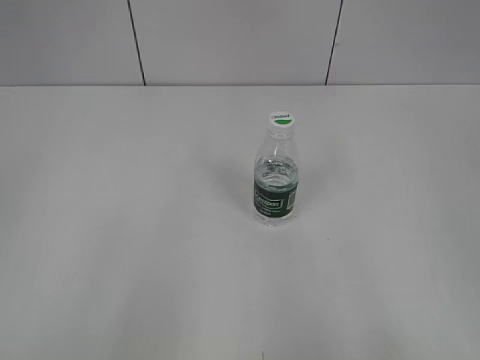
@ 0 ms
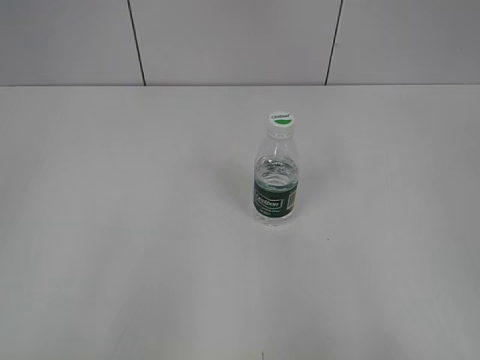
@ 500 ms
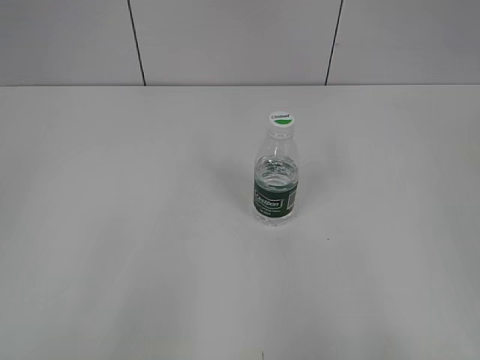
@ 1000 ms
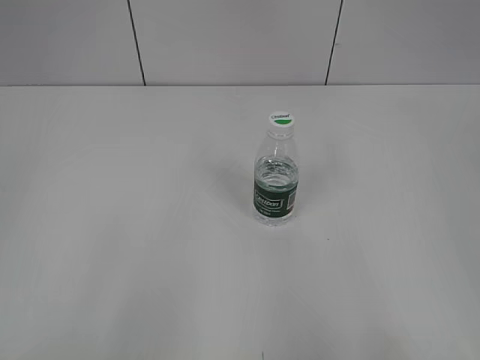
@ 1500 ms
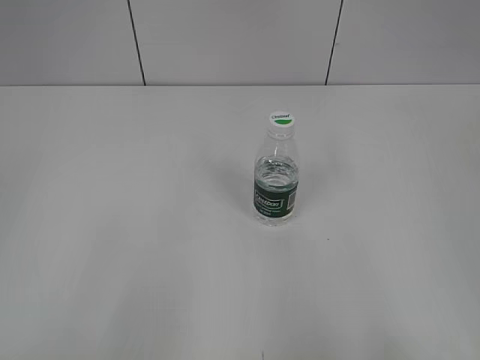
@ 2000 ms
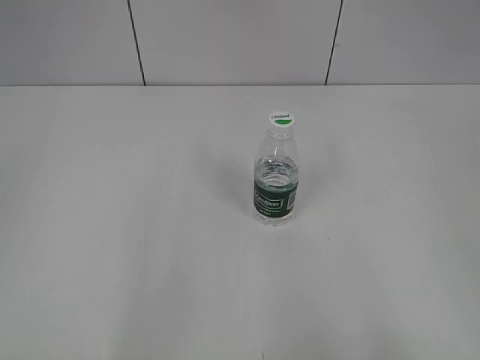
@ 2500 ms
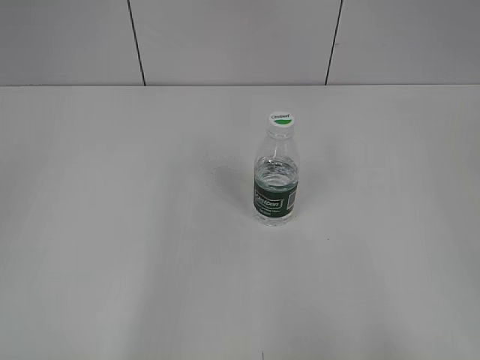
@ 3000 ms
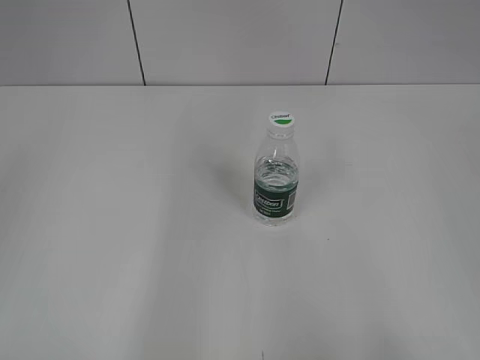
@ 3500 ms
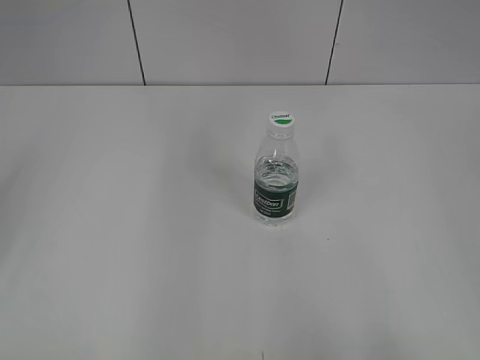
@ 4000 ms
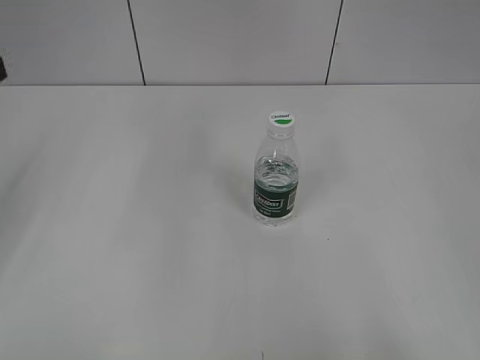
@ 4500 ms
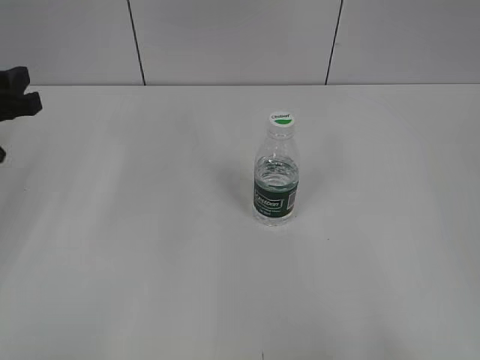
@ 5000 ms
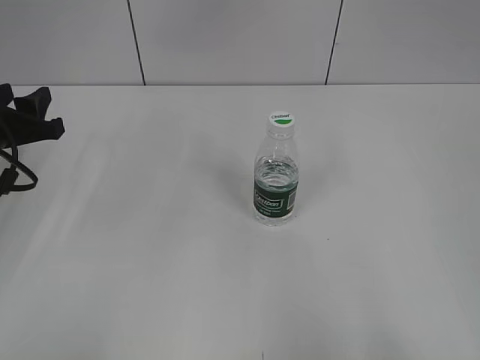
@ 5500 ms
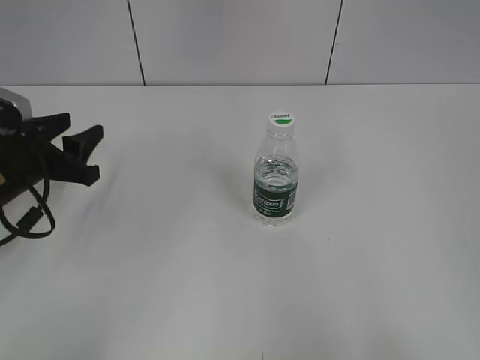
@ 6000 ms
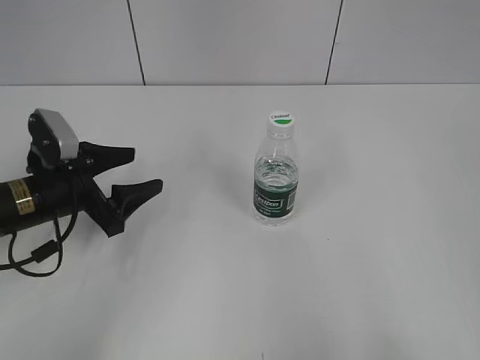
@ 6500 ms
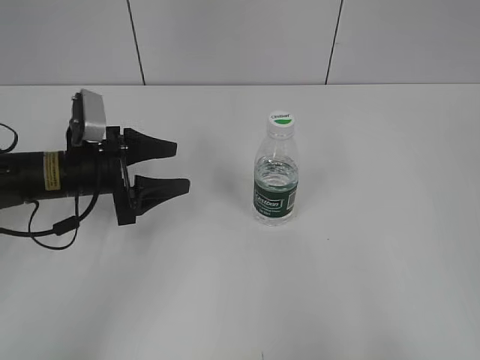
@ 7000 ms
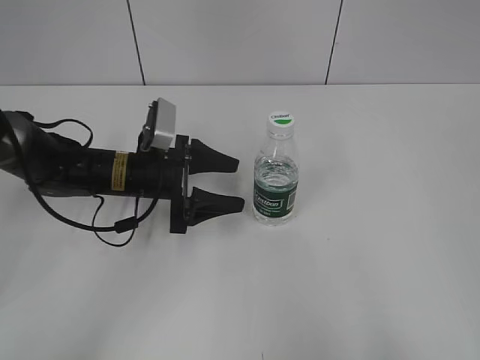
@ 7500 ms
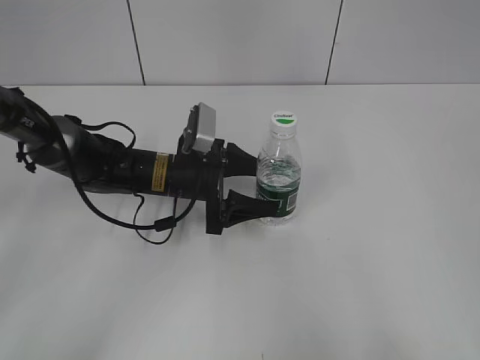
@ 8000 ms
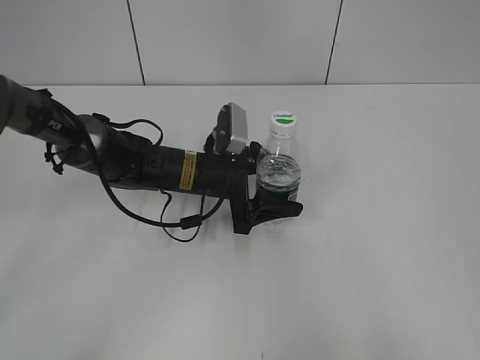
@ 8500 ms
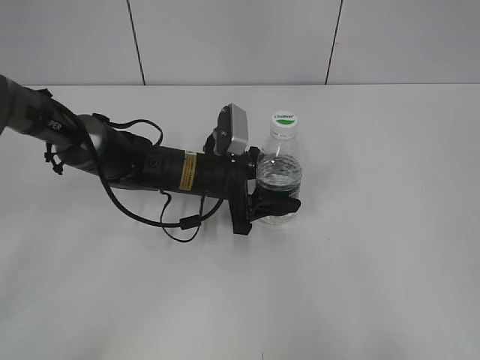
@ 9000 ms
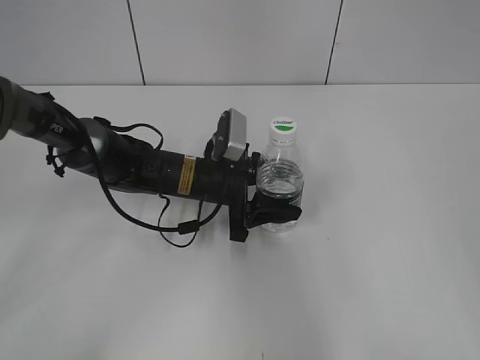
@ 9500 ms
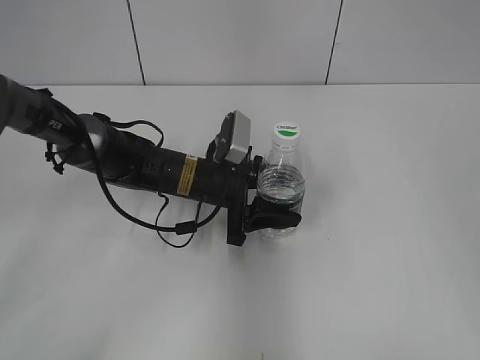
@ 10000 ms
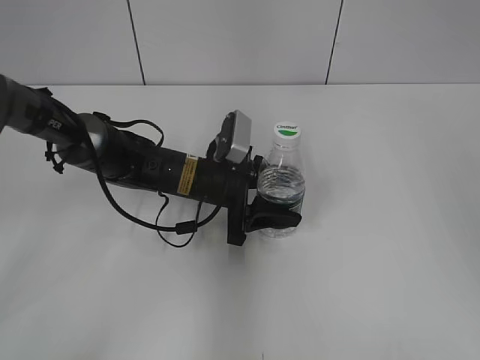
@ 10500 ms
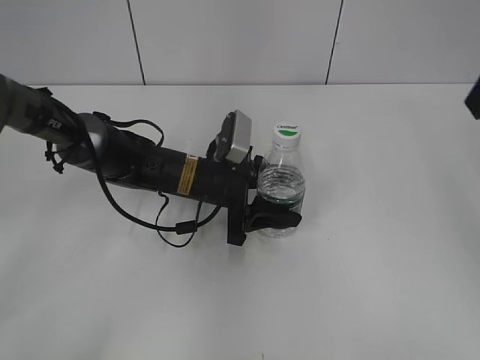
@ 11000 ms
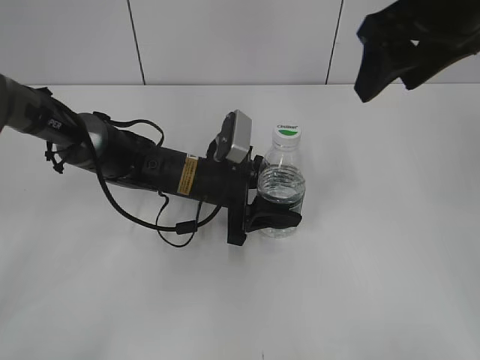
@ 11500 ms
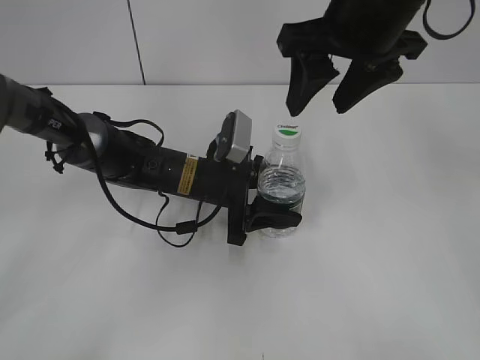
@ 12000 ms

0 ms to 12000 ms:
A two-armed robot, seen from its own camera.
Step, 0 ms to 9500 ms: Grasp the bottle and move it to the center of the table with the left gripper.
4000 ms to 6000 ms: The left gripper heads downward and forward, covering roughly 20 cm.
6000 ms to 8000 ms: The left gripper moves to the right, approximately 20 cm, and opens.
8000 ms to 10000 ms: The right gripper moves forward and upward, some 15 cm, while the left gripper closes.
10000 ms to 12000 ms: The right gripper goes some 30 cm forward and to the left.

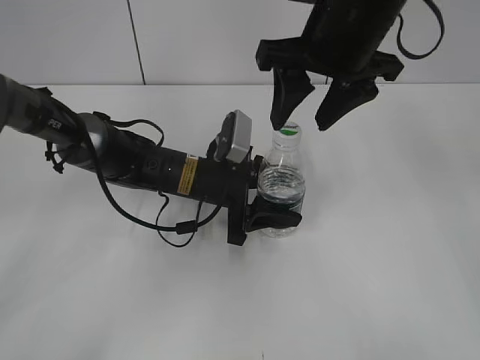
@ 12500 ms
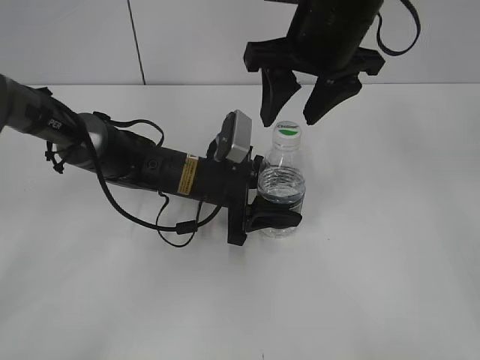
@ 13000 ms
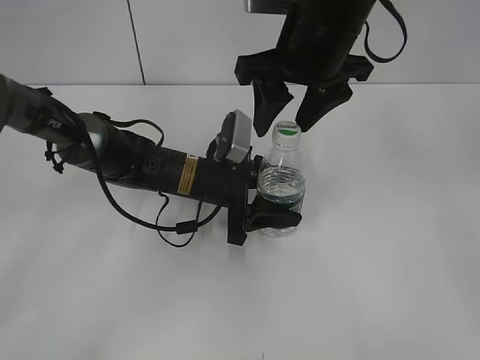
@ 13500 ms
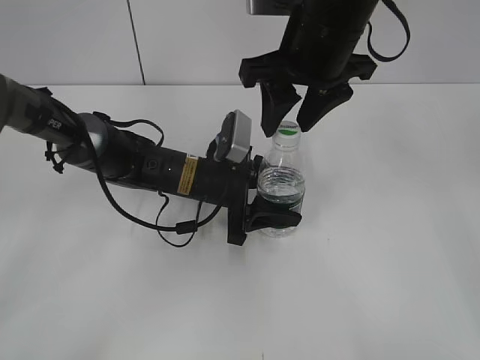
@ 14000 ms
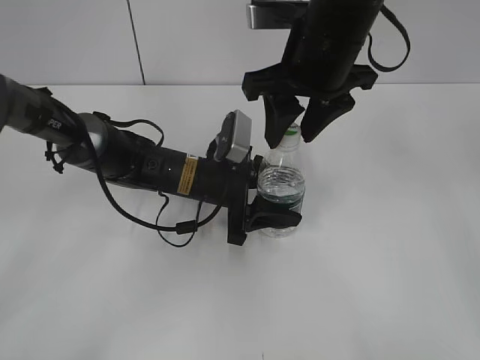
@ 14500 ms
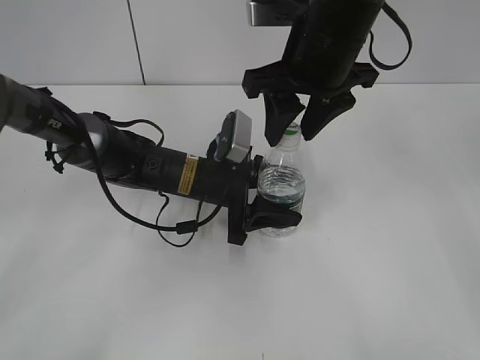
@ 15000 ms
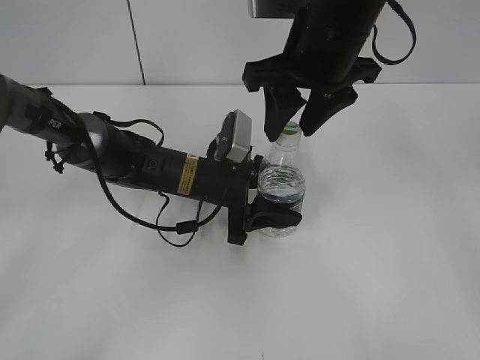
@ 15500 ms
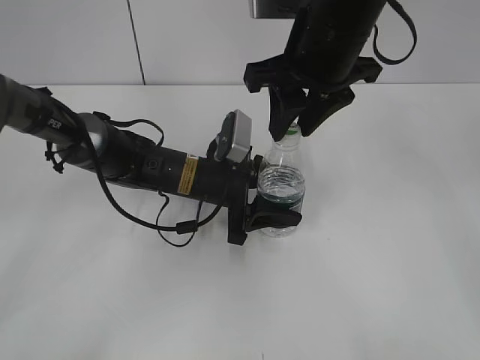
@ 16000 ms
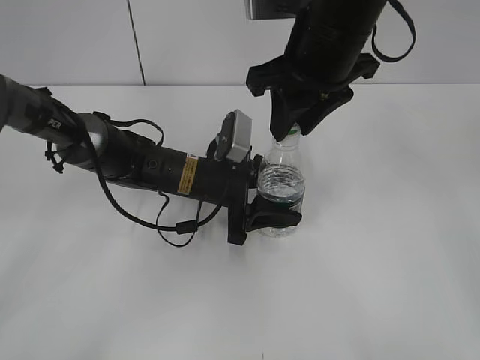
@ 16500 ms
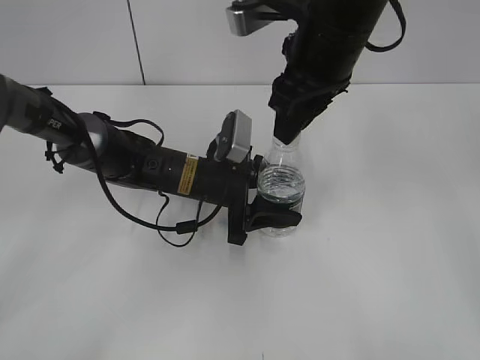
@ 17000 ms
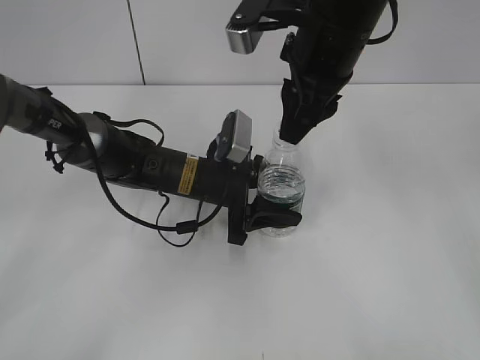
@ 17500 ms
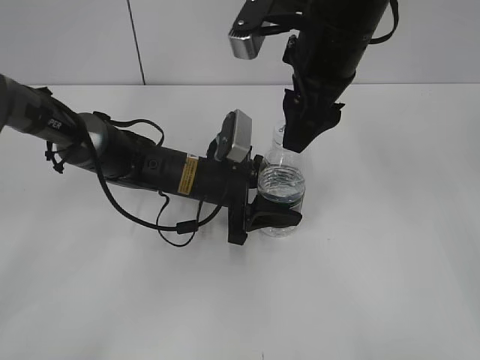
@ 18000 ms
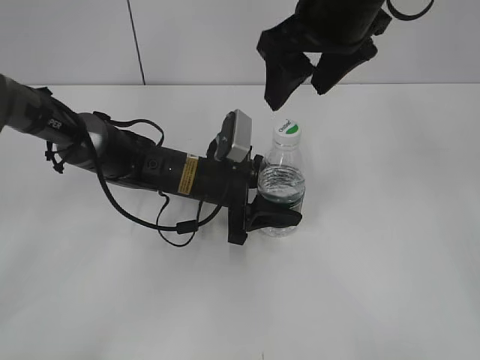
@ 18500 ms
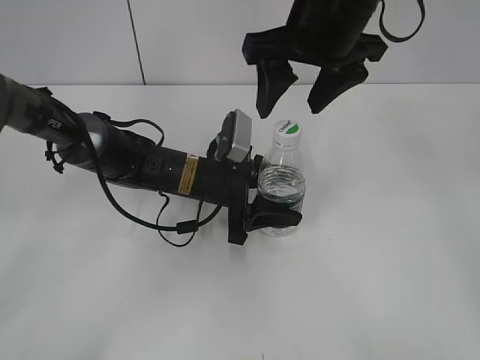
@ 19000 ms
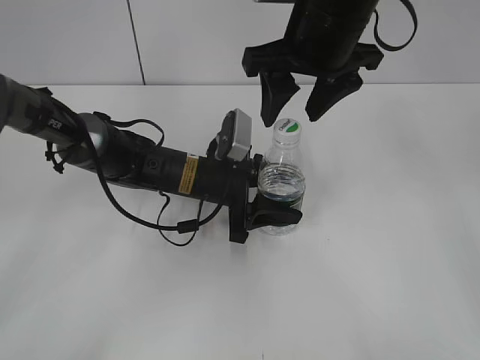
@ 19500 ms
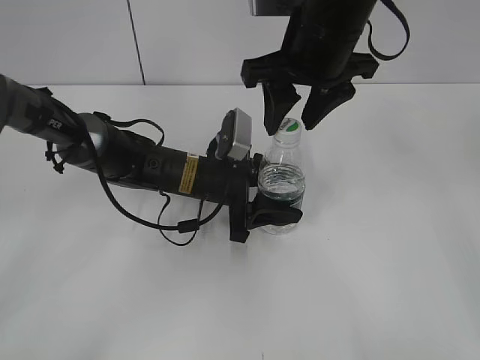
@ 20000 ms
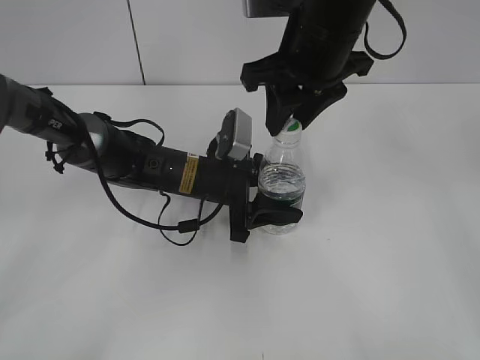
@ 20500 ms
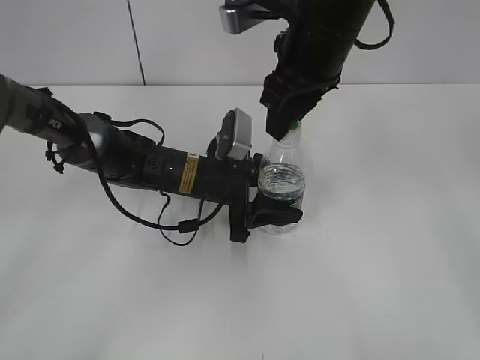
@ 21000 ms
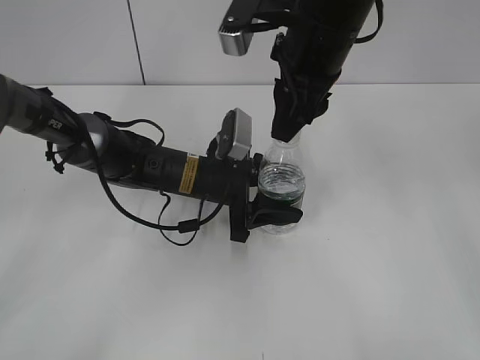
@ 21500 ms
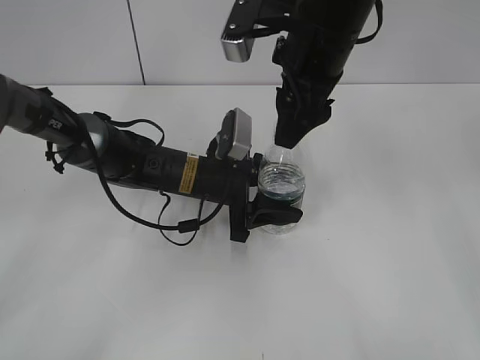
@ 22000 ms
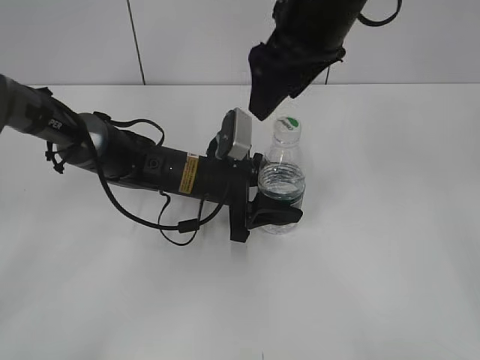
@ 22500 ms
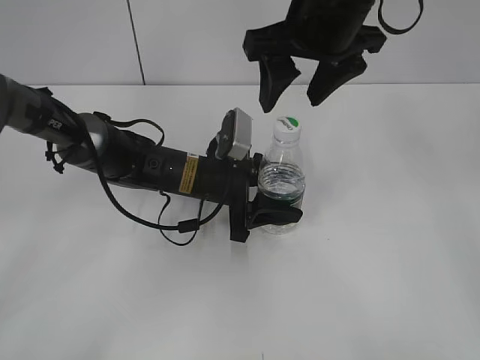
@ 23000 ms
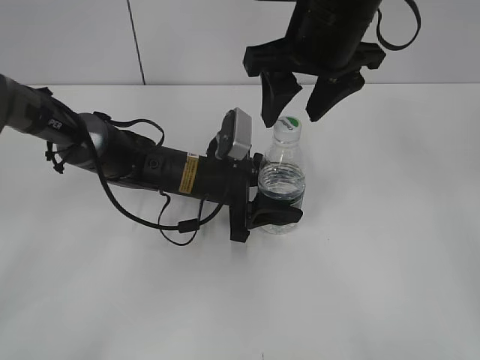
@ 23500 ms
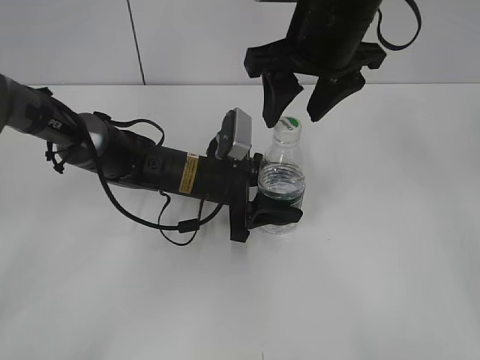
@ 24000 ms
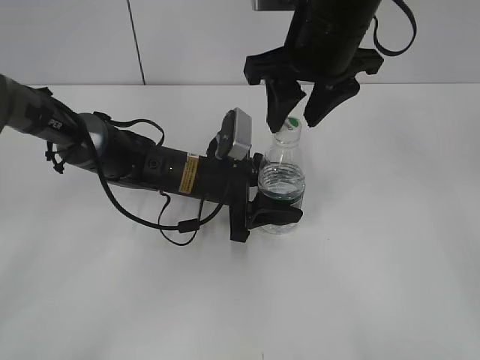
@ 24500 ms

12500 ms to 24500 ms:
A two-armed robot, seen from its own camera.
12500 ms to 14500 ms: There are only small adjustments of the grippers.
14500 ms to 16500 ms: The right gripper closes its fingers.
16500 ms to 18500 ms: The right gripper opens up.
18500 ms to 20500 ms: The right gripper closes its fingers.
20500 ms to 22500 ms: The right gripper opens up.
22500 ms to 24500 ms: The right gripper closes its fingers.

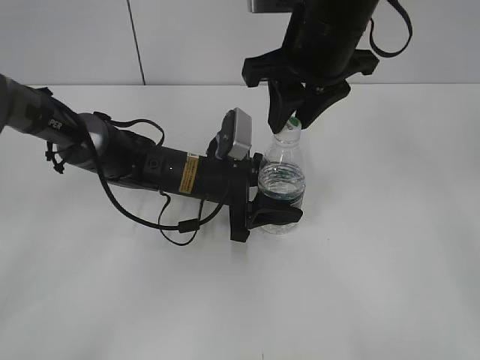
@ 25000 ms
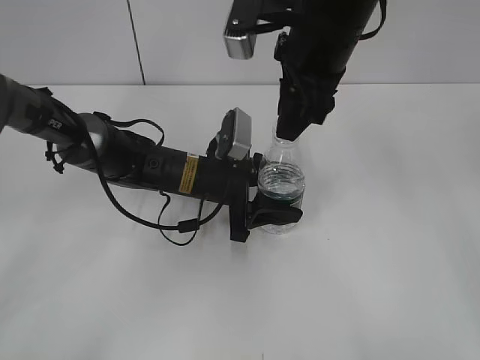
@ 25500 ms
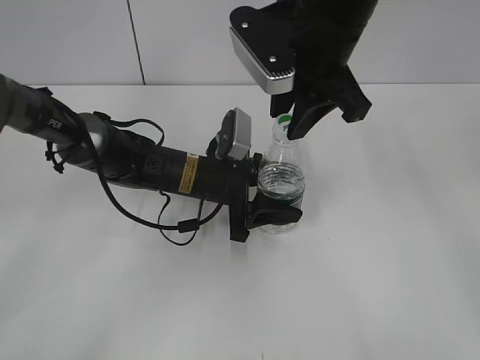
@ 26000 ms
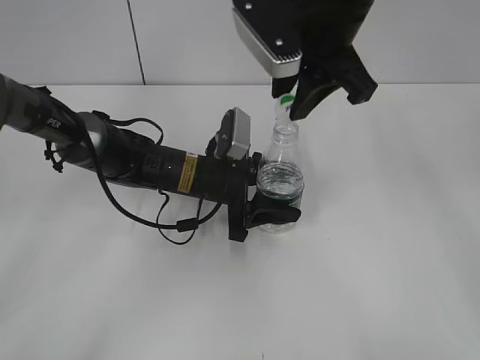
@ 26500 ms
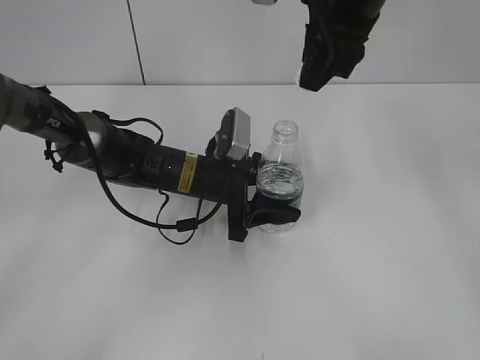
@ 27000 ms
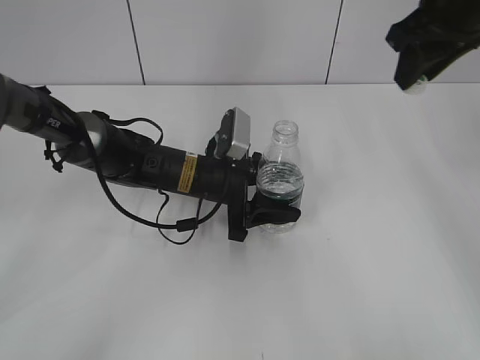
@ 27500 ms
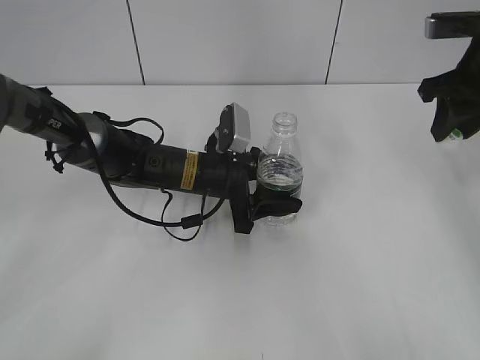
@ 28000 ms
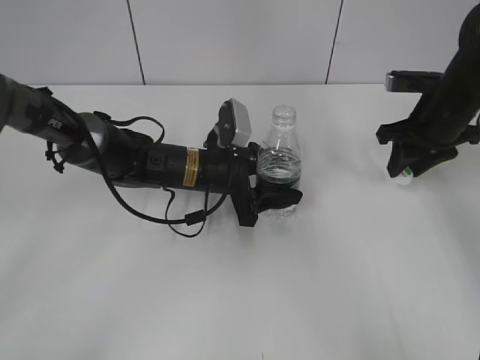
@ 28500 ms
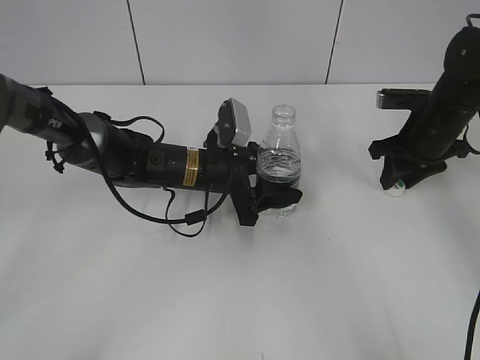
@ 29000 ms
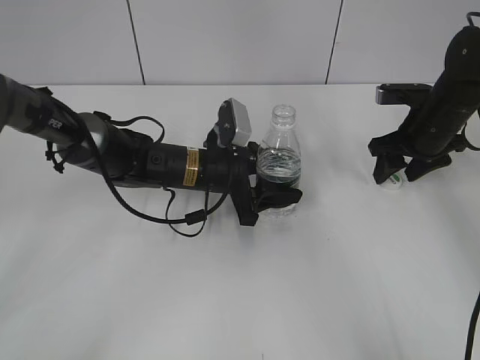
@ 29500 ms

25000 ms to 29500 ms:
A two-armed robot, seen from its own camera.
25000 ms to 27000 ms: The right gripper moves upward, some 5 cm.
27000 ms to 29500 ms: The right gripper is displaced downward and to the right by roughly 25 cm, and opens.
